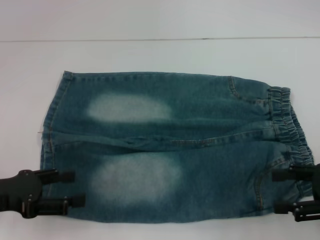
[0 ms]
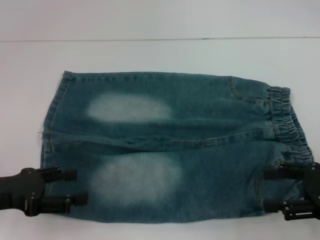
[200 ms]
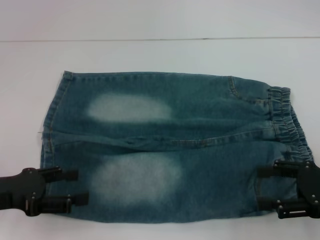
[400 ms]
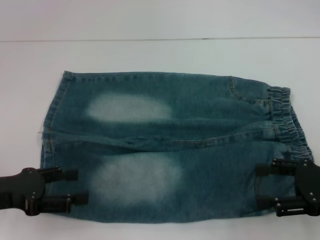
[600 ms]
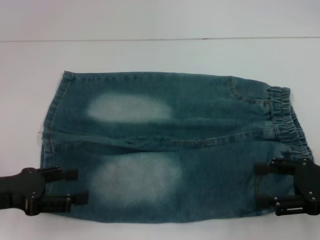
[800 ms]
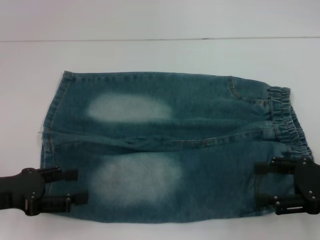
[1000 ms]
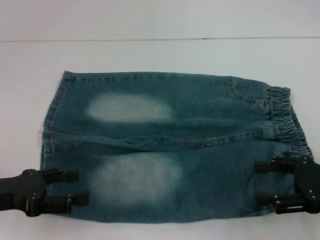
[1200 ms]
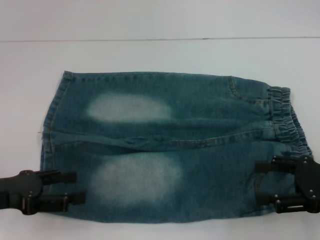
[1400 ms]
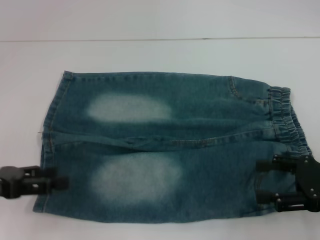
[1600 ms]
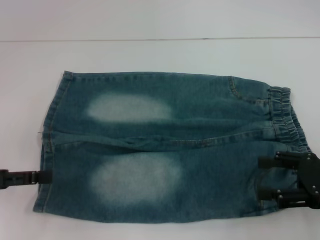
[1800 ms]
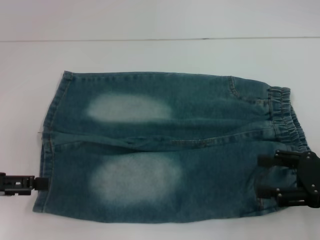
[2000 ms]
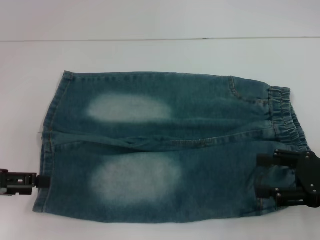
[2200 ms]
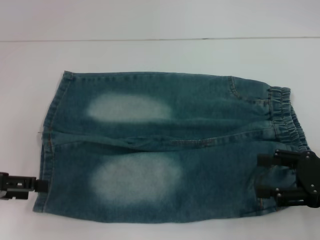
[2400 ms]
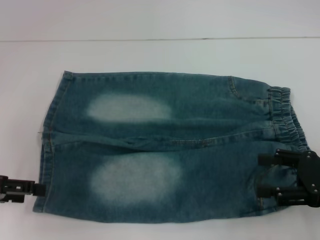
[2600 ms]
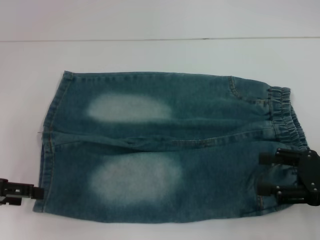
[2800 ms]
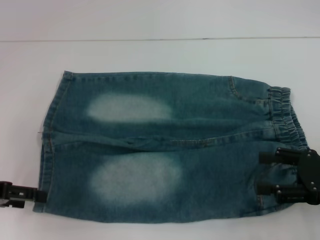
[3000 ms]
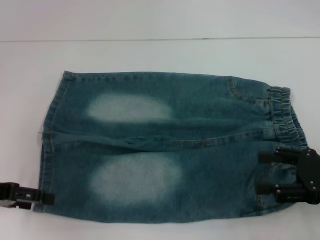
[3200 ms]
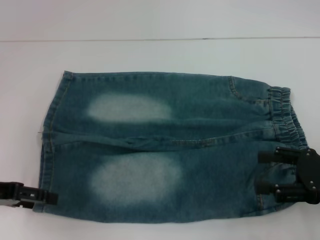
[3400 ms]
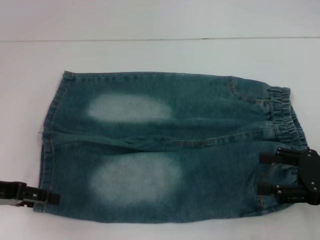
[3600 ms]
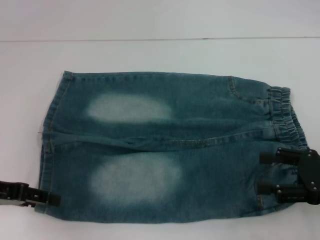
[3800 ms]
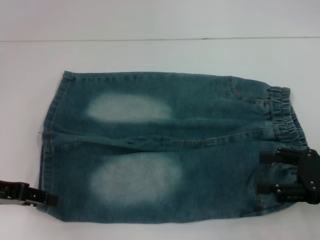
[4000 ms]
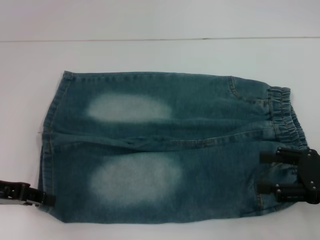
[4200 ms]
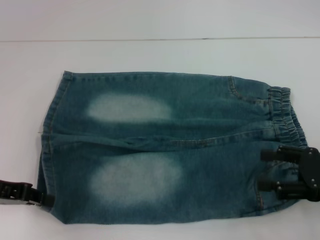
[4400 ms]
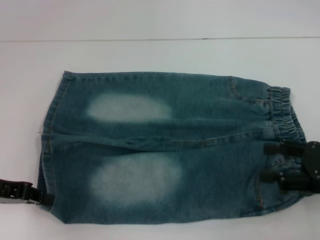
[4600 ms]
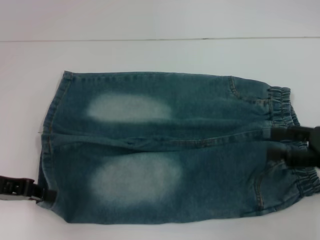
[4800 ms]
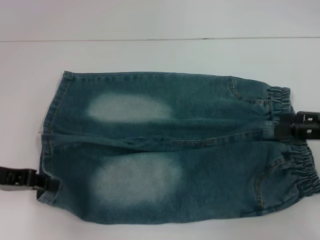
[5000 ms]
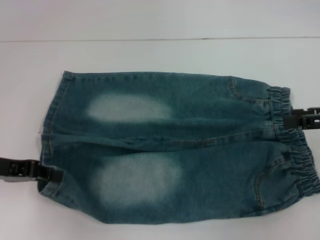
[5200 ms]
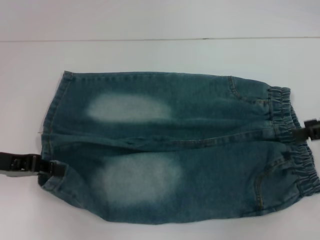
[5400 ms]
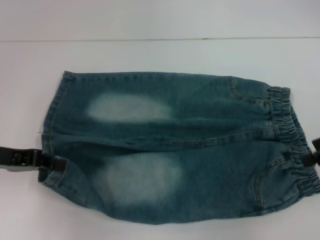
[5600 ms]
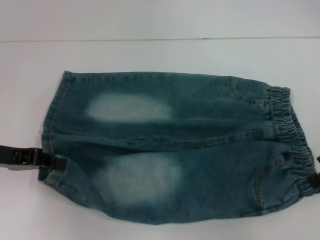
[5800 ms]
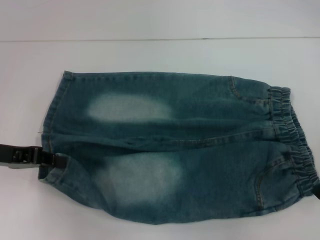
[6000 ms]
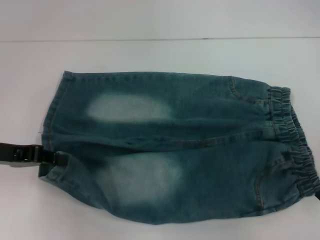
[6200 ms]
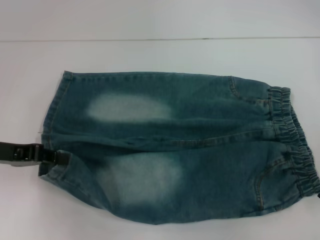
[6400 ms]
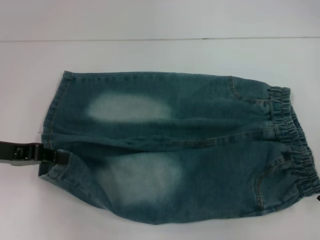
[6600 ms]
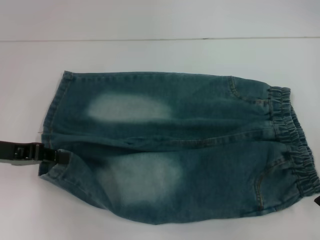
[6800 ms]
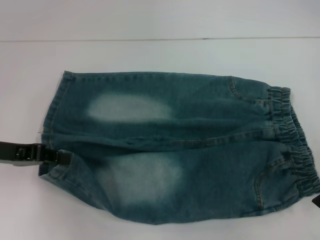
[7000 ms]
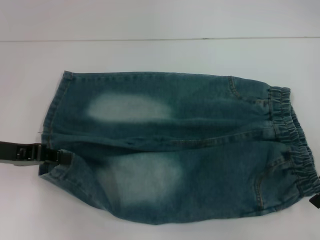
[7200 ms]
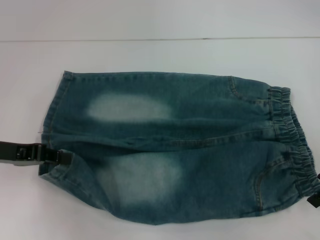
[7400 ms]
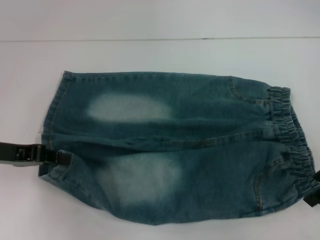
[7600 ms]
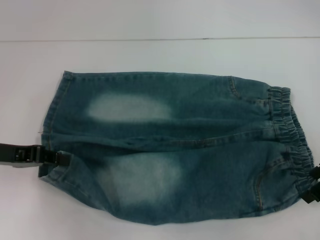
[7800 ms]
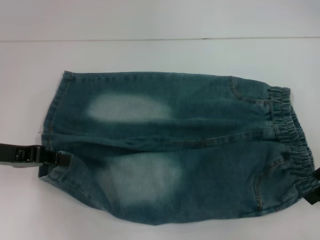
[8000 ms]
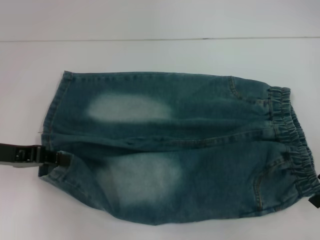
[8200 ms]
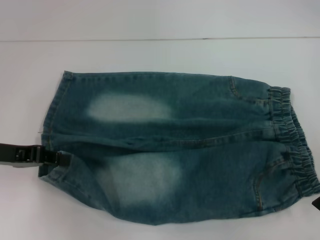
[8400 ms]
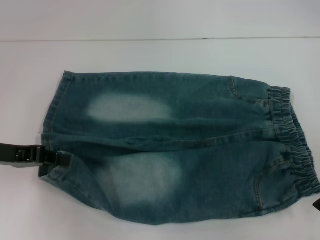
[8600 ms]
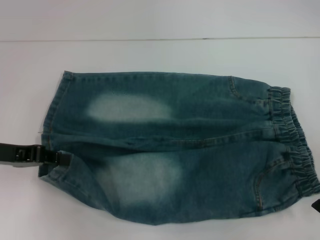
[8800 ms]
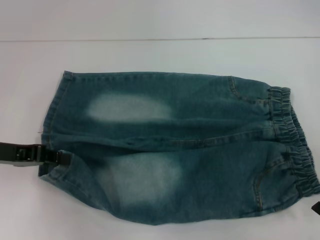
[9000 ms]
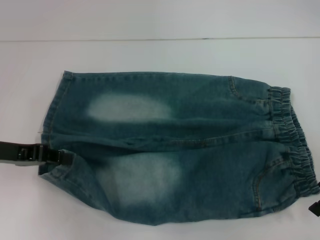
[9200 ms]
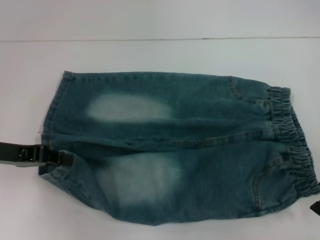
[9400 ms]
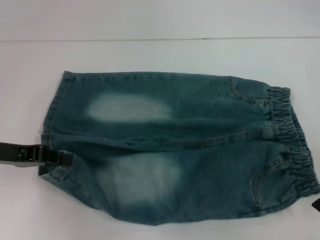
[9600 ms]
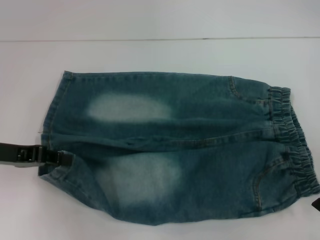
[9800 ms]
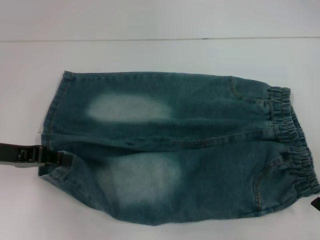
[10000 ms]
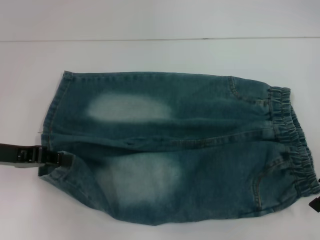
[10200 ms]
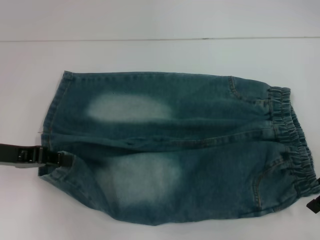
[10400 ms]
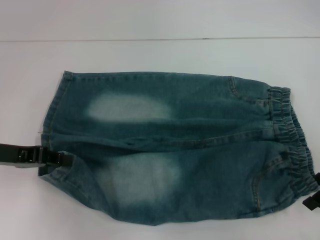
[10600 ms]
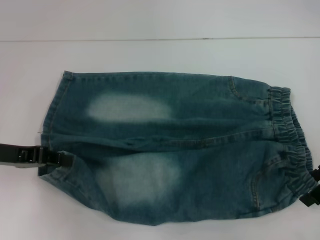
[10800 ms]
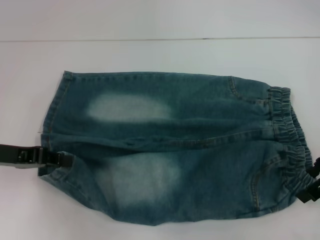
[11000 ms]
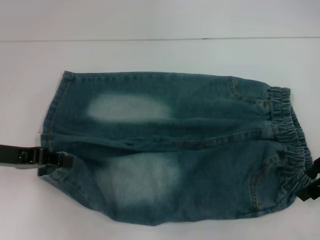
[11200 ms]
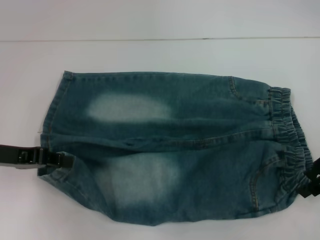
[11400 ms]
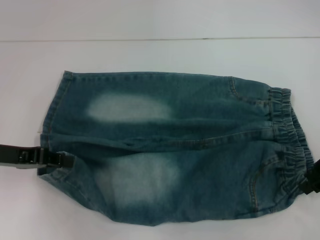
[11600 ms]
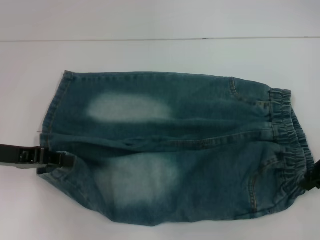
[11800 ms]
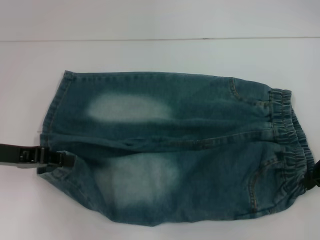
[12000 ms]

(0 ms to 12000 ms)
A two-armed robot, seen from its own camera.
Step, 0 ms - 4800 ms: Grab the lower left pant leg with your left hand.
0 ms - 1600 ms: The grippers move only a little.
3000 ms - 4400 ms: The left gripper closes up.
4400 ms - 6000 ms: The right gripper shifts about 10 cm upward and forward.
6000 ms - 7600 ms: There are only small adjustments of the grippers.
7600 ms - 10400 ms: The two grippers keep their place.
10400 ms - 12000 ms: The right gripper closes its fingers.

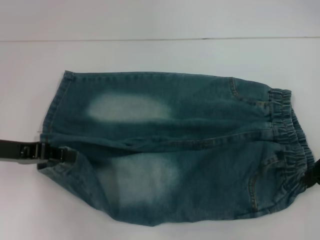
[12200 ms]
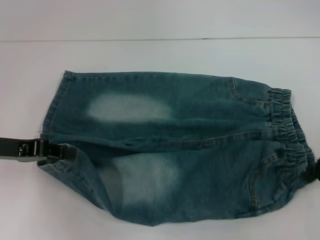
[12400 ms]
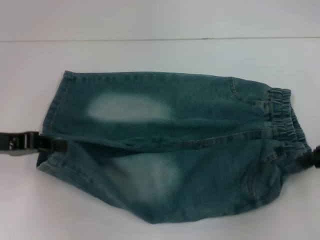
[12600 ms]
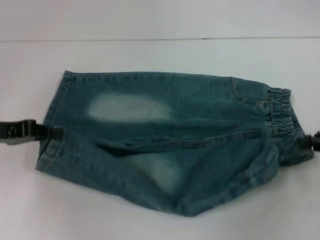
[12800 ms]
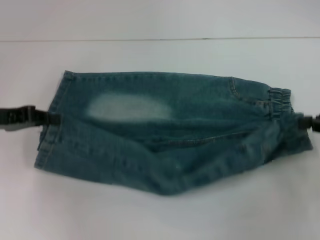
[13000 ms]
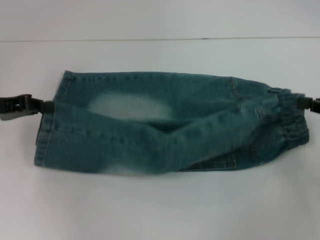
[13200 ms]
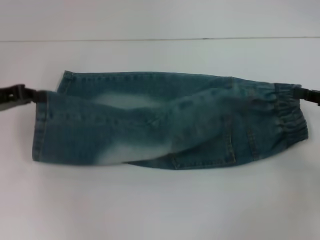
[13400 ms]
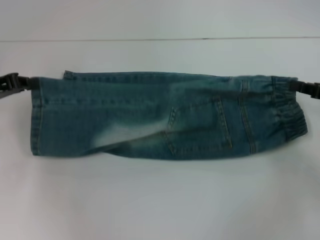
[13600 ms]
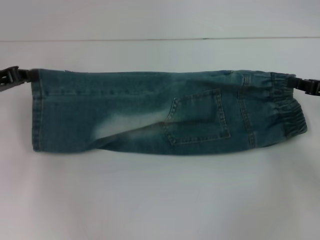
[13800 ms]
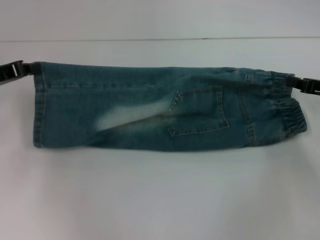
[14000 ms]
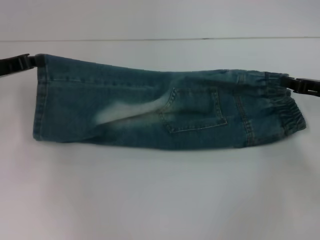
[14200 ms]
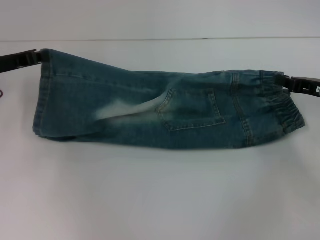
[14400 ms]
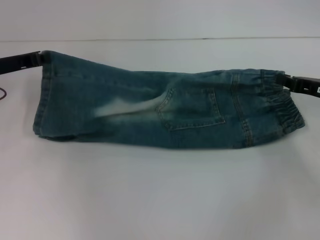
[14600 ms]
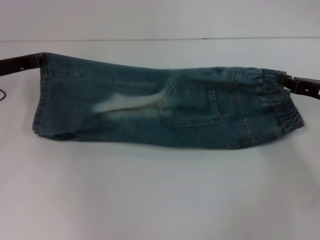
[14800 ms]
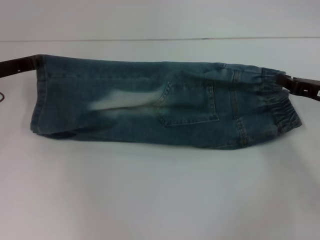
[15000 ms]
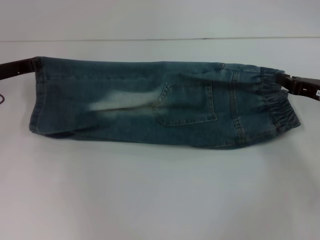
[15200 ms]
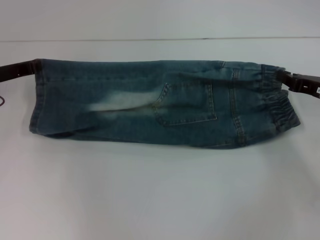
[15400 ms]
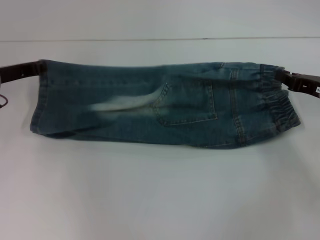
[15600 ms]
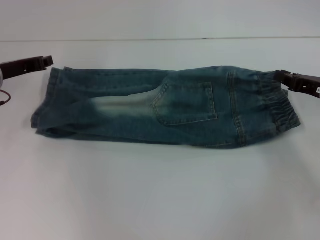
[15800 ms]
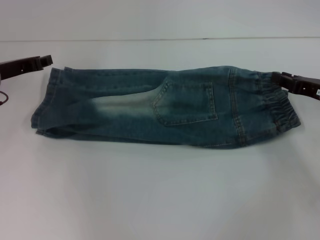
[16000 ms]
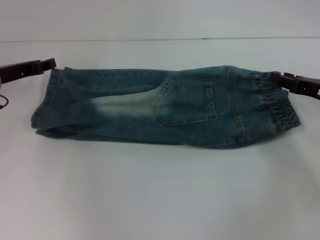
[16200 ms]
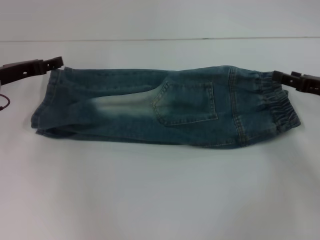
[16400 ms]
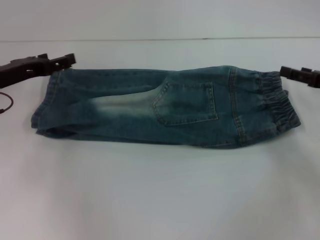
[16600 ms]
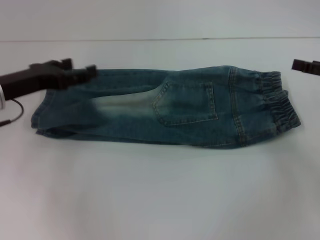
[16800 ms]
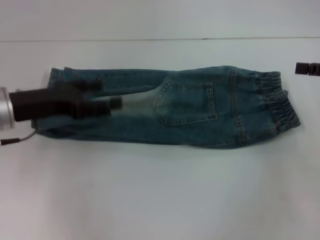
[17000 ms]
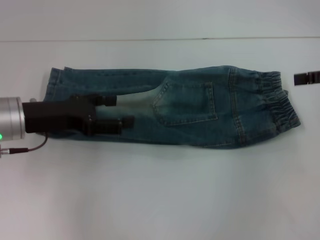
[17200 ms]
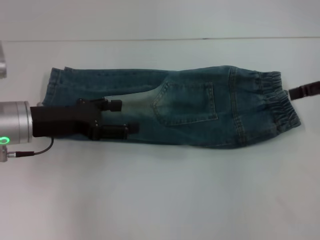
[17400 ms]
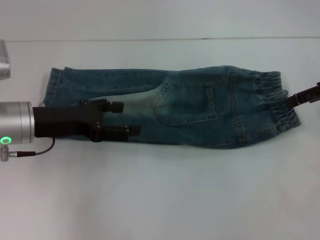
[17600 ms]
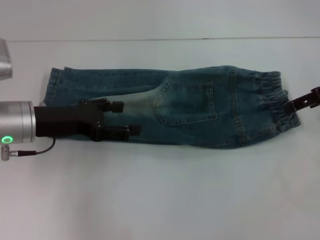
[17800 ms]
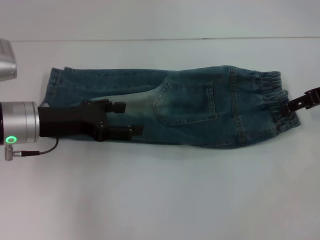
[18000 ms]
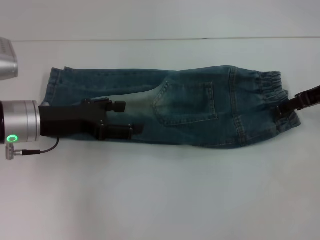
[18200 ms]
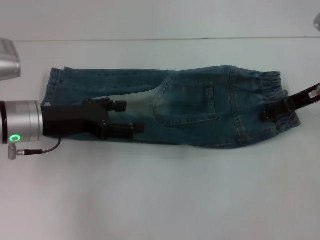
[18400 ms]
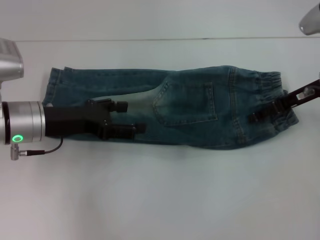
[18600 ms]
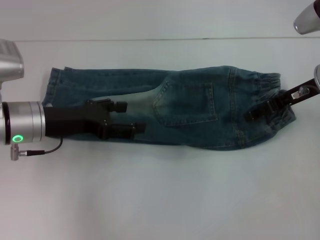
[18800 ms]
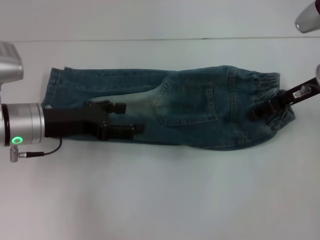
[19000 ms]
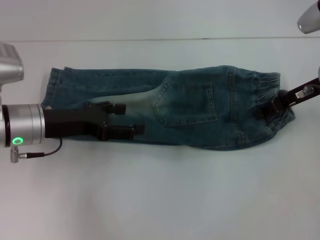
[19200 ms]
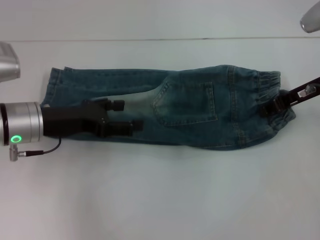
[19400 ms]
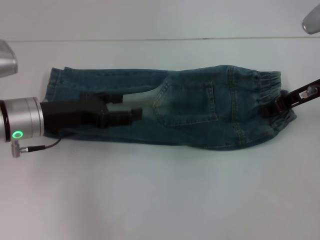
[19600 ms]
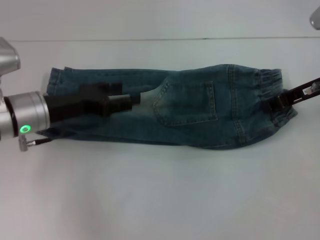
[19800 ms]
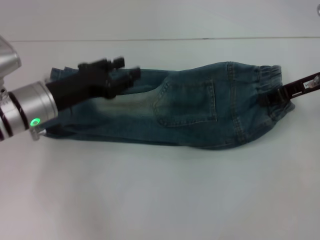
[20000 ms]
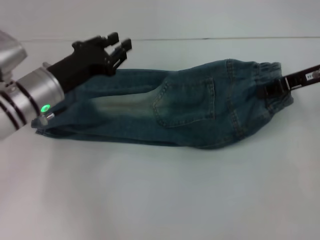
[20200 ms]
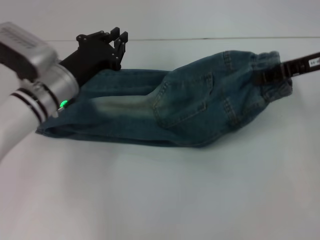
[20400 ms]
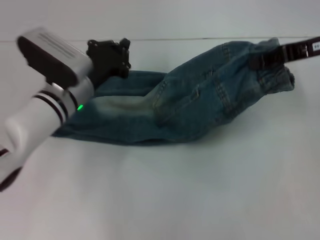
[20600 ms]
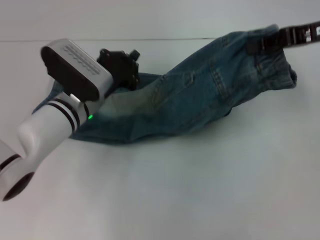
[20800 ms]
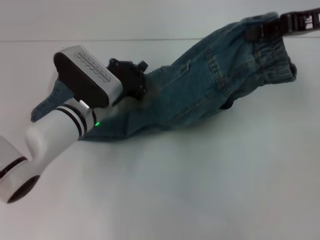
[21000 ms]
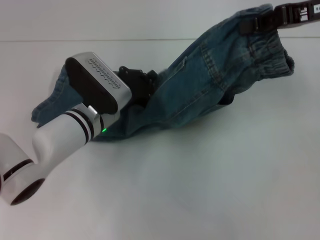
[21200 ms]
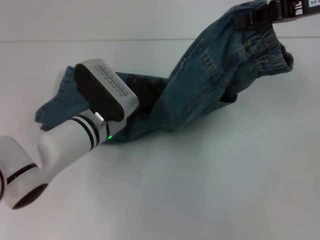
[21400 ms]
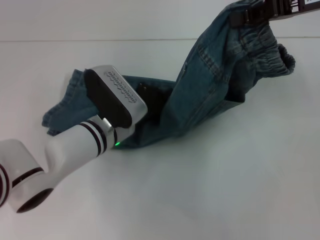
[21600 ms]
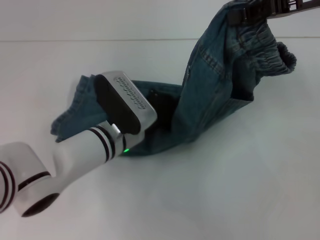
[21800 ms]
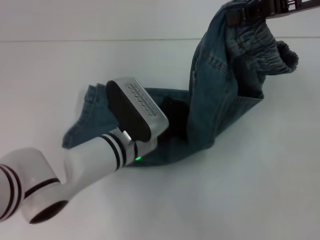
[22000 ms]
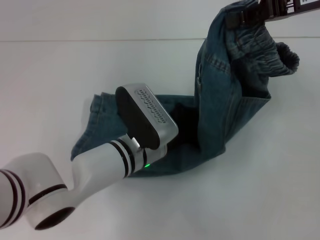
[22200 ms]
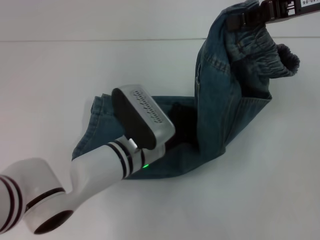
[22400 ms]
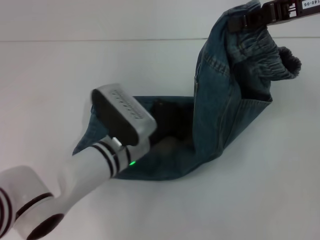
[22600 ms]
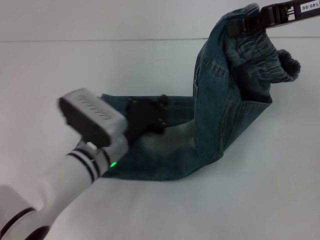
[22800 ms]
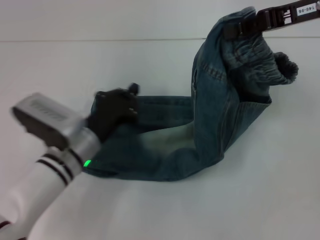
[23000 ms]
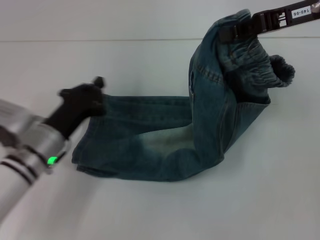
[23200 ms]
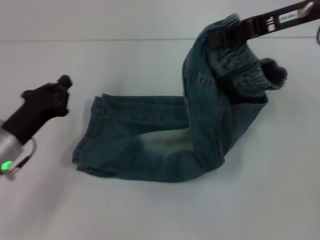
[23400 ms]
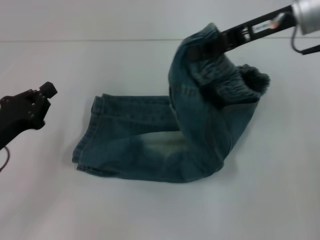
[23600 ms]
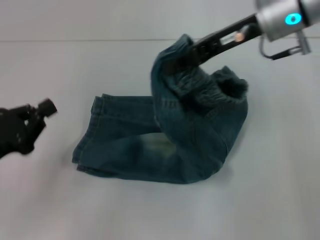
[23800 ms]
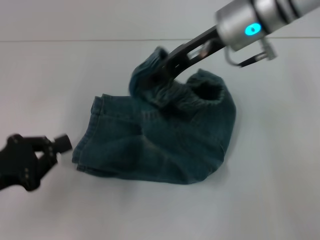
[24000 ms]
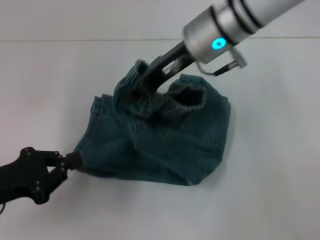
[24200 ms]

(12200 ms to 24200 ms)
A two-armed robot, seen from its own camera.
Step, 12400 ms - 15800 ms: Fold upward with your left hand.
Step, 16200 ms - 19400 ms: Grab the waistband with your right hand.
Step, 19800 ms - 22200 ms: Press the middle of the pants with your left hand.
12200 ms - 13800 ms: The left gripper heads forward, covering approximately 5 cm; the right gripper moves roughly 5 cm.
13800 ms - 15200 ms: The left gripper shifts by roughly 5 cm.
15200 ms - 16600 ms: The left gripper opens, while the right gripper opens.
16600 ms - 18200 ms: The left gripper shifts approximately 5 cm to the right. The right gripper moves upward, about 5 cm.
18200 ms - 19800 ms: The right gripper closes.
19800 ms - 21200 ms: The right gripper moves upward, roughly 10 cm. Meanwhile the left gripper moves to the right and downward, approximately 10 cm, and closes its fingers.
21200 ms - 22600 ms: The left gripper moves backward, some 5 cm.
22600 ms - 24200 ms: The right gripper shifts about 20 cm to the left. Meanwhile the left gripper heads to the left and backward, covering roughly 25 cm.
